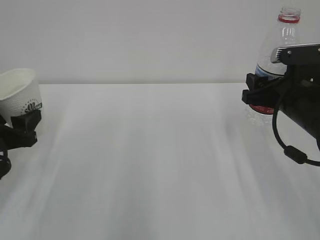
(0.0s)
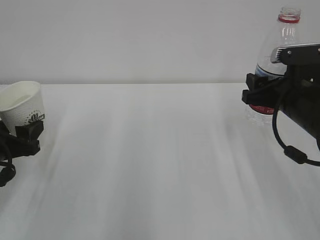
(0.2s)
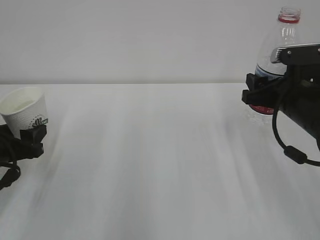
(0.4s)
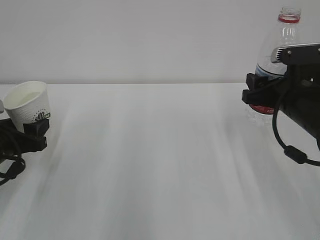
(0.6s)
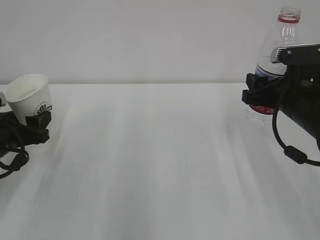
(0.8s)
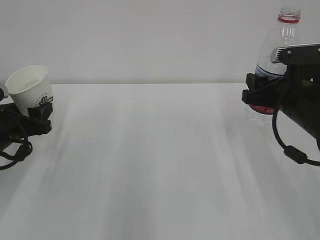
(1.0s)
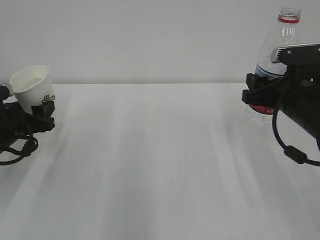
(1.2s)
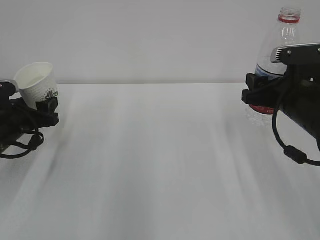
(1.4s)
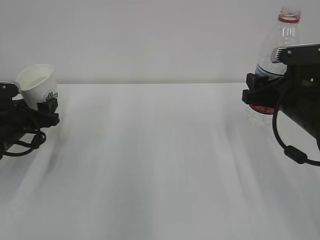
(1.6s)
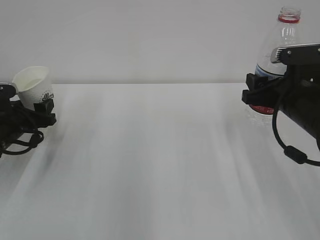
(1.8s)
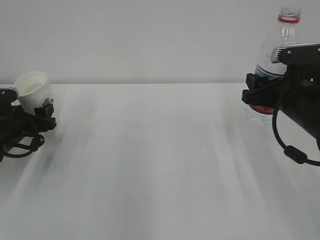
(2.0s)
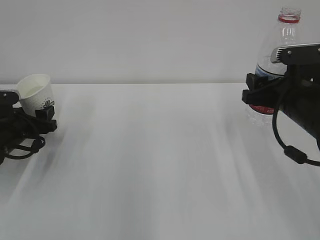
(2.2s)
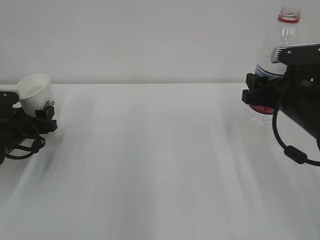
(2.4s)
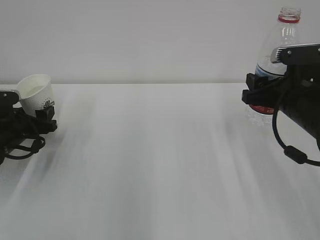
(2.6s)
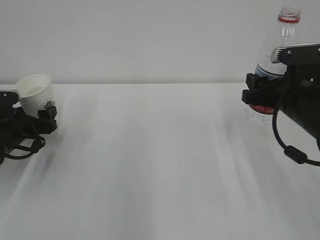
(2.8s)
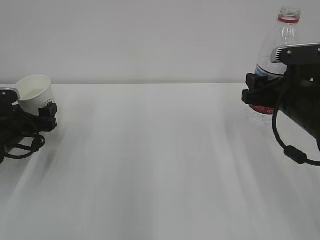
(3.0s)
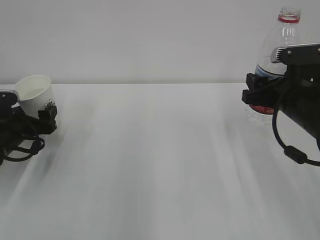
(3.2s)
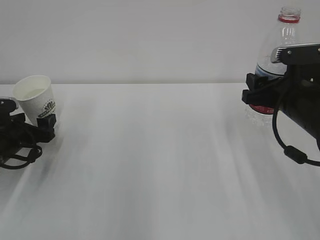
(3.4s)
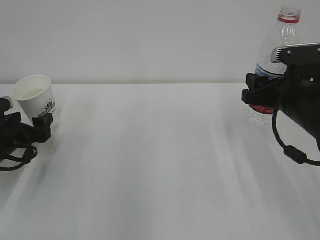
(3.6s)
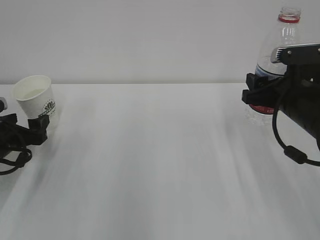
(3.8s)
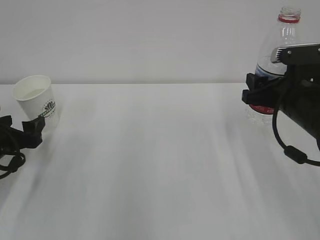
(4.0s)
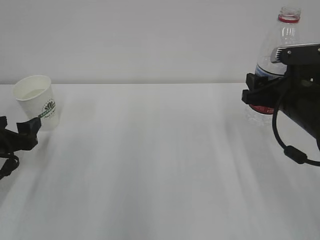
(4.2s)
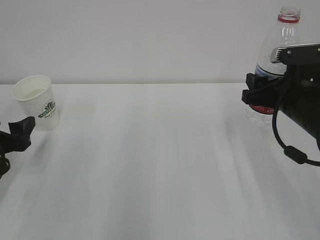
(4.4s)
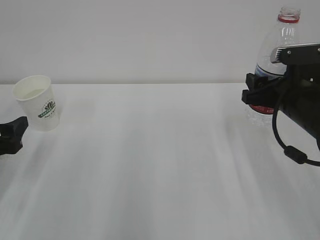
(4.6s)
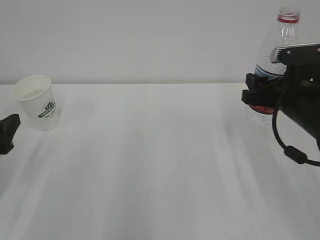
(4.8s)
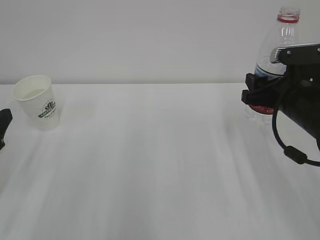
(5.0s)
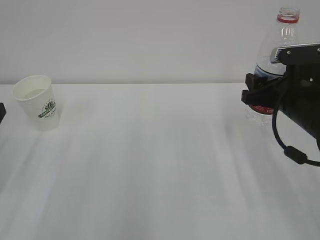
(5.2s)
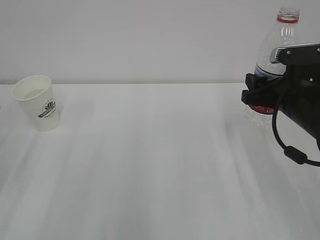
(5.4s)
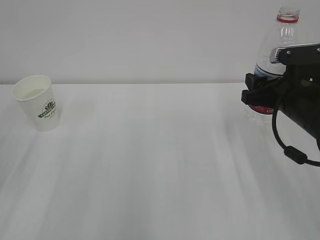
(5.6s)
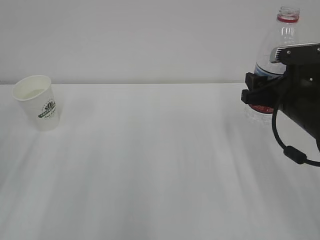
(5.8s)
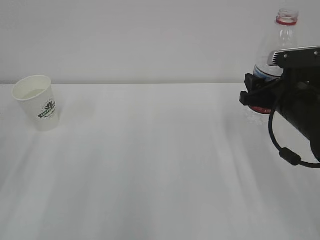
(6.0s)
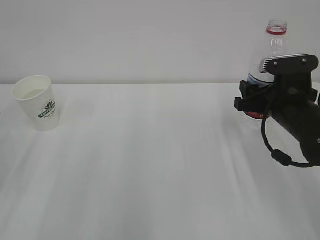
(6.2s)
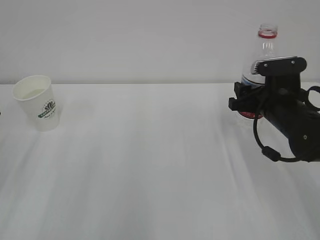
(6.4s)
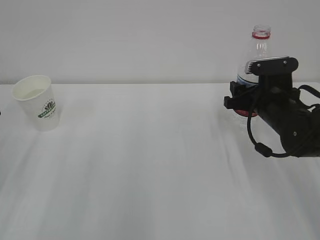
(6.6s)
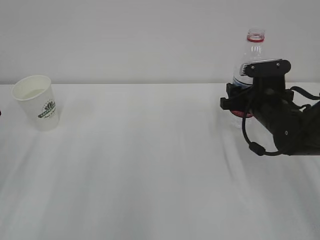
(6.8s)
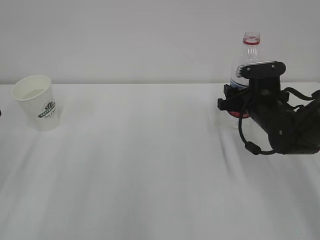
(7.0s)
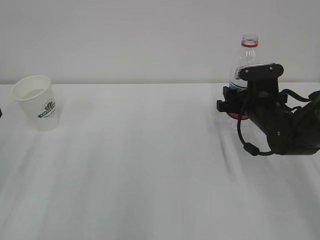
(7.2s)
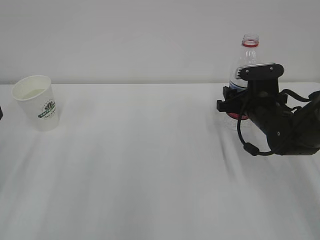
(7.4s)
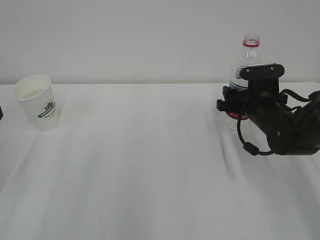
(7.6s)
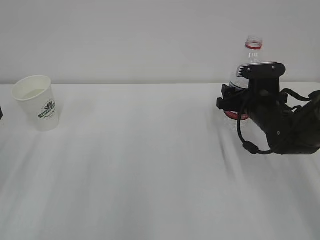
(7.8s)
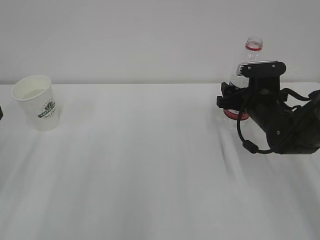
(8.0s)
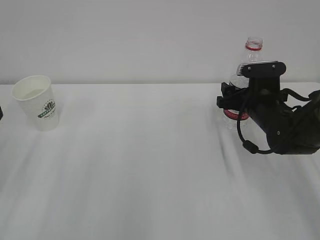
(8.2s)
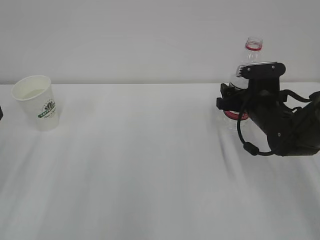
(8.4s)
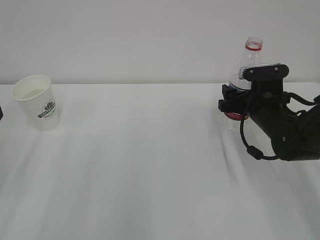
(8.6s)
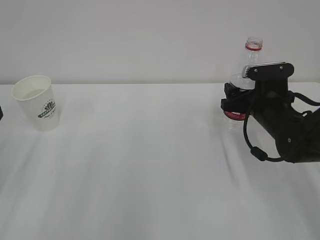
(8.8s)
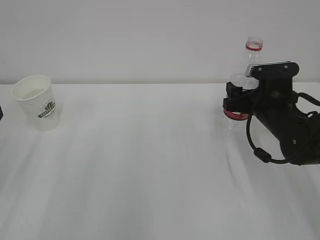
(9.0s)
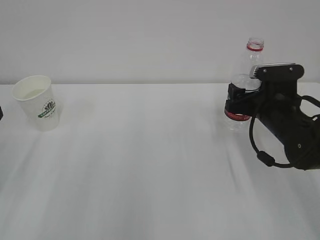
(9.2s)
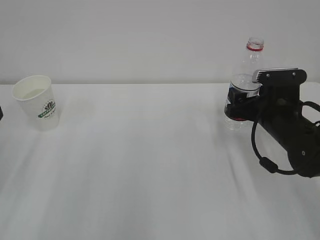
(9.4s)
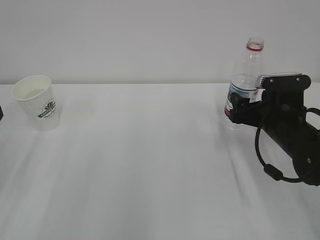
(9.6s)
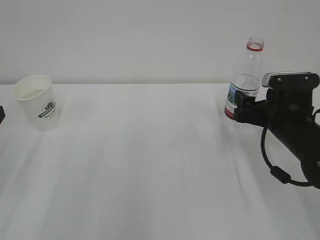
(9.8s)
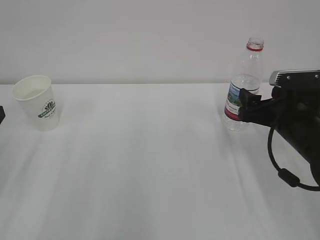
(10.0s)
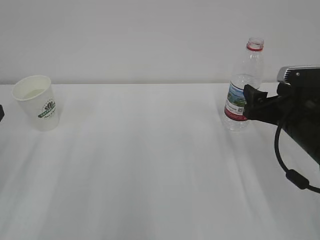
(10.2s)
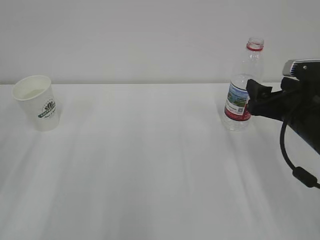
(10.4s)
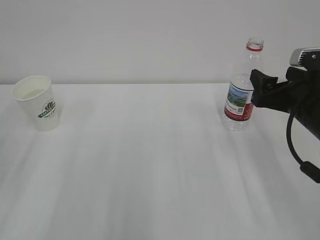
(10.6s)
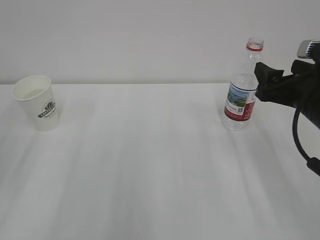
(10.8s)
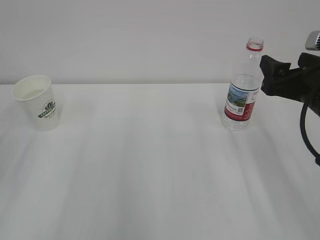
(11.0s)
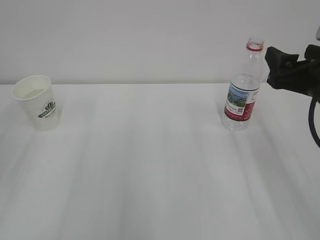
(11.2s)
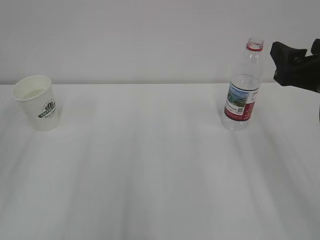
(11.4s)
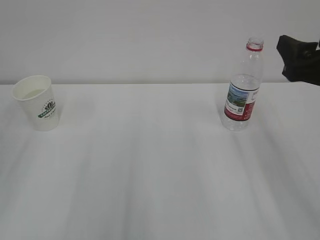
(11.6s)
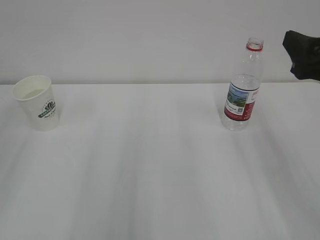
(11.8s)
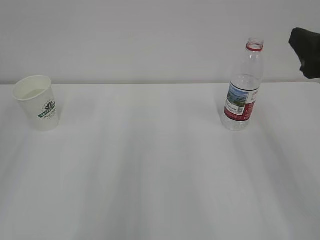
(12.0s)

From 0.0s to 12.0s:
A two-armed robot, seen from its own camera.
From 0.0s to 1.6s: The left gripper travels forward by some 10 cm.
From 1.6s to 3.0s: The left gripper opens its fingers.
From 3.0s to 4.4s: The left gripper is displaced backward by about 10 cm.
From 4.4s to 6.0s: The left gripper heads upward and backward, covering about 10 cm.
From 6.0s to 7.6s: The right gripper moves forward and downward, some 10 cm.
From 7.6s to 9.0s: The right gripper opens.
From 9.0s to 10.4s: The right gripper is displaced backward by roughly 5 cm.
From 10.4s to 12.0s: The right gripper travels upward and backward by about 15 cm.

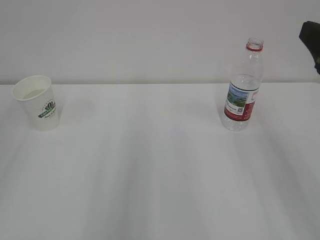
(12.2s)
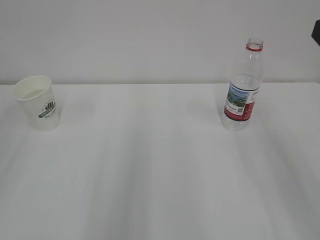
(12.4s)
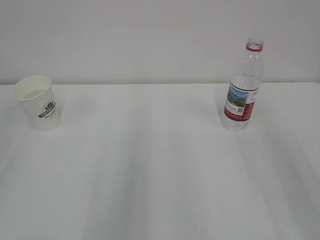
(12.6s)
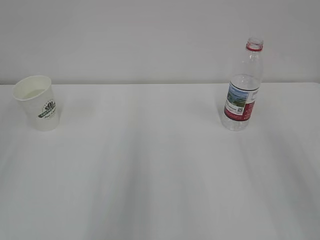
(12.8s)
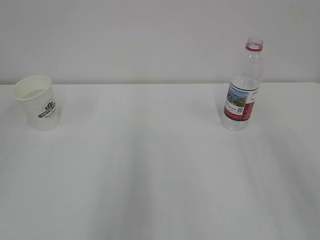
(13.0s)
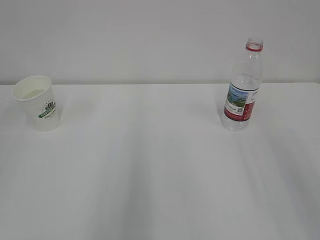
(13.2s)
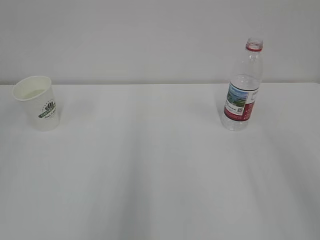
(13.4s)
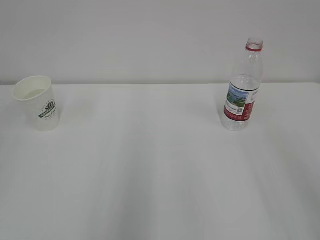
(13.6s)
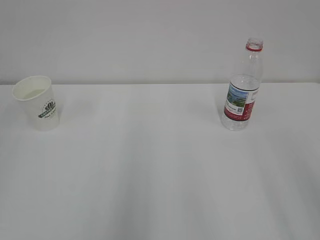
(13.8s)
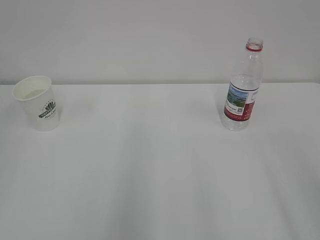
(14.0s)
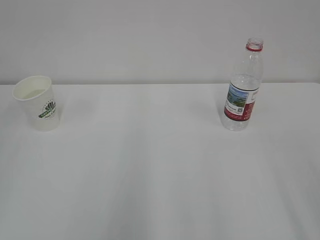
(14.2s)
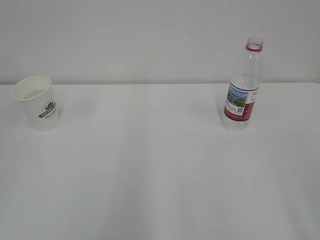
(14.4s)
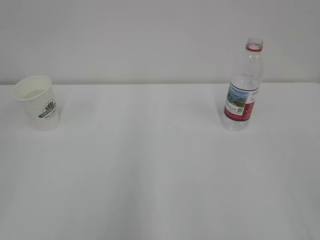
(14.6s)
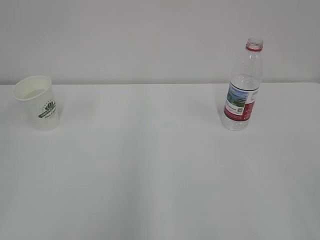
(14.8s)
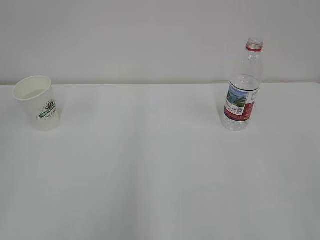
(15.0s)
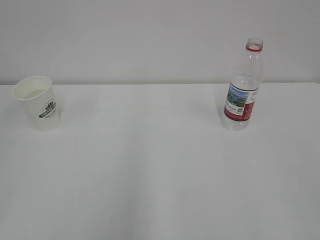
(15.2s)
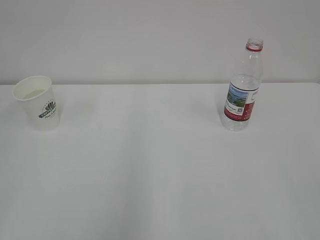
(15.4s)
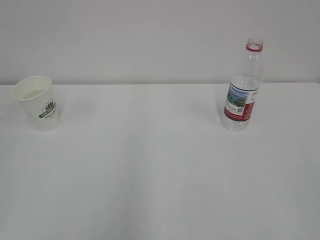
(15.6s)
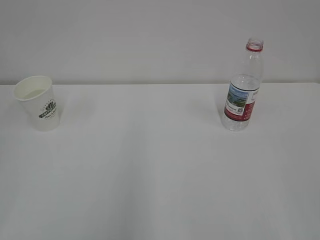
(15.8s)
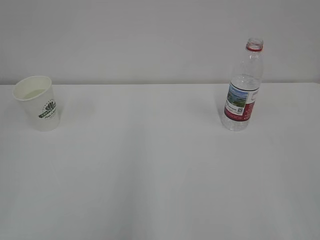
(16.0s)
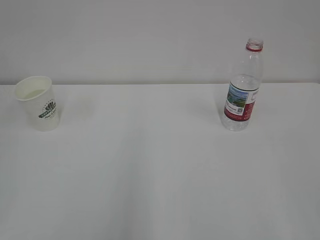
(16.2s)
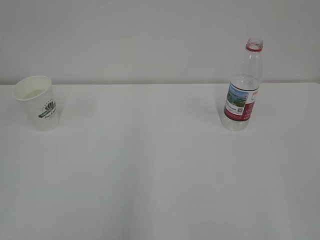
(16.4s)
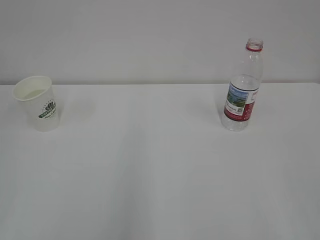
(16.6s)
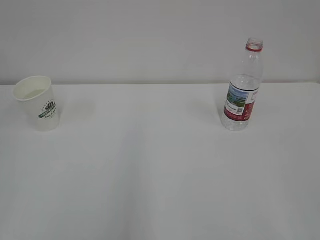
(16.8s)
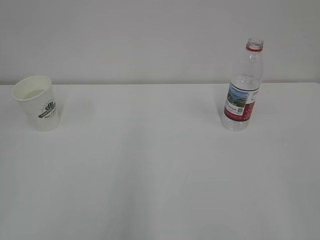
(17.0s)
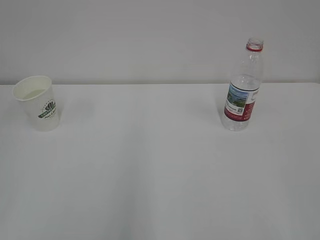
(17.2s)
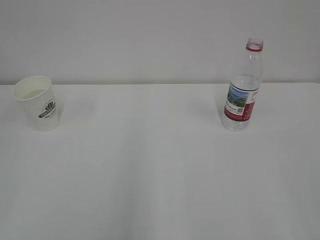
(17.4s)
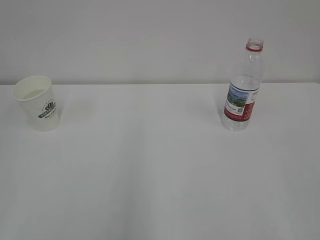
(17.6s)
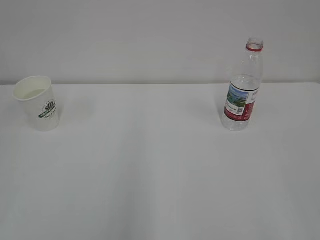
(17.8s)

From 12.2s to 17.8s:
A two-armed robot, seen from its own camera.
From 12.2s to 13.6s: The right gripper heads backward, covering some 10 cm.
From 16.4s to 17.8s: The two grippers keep their place.

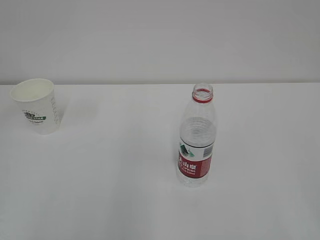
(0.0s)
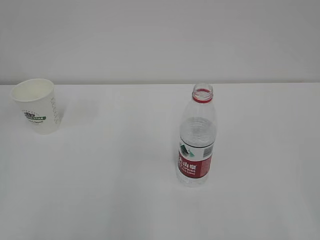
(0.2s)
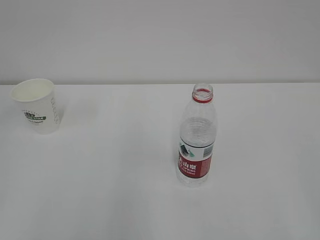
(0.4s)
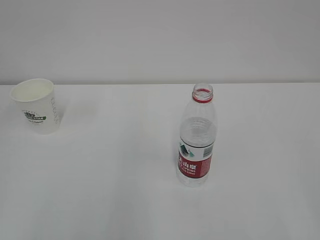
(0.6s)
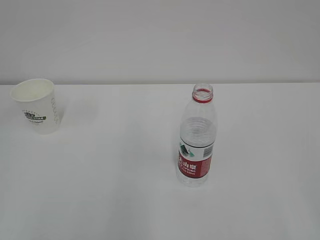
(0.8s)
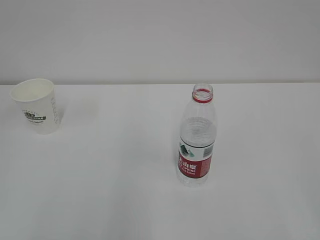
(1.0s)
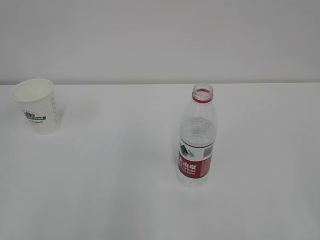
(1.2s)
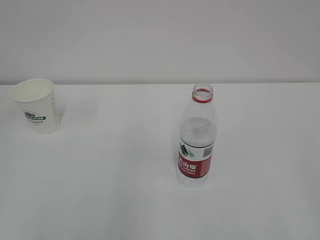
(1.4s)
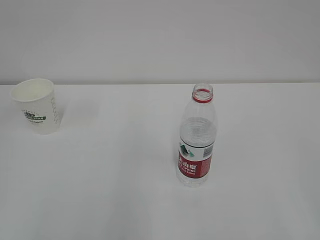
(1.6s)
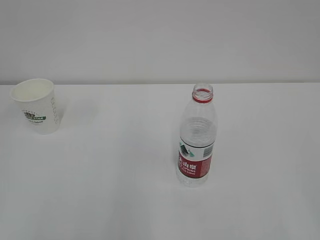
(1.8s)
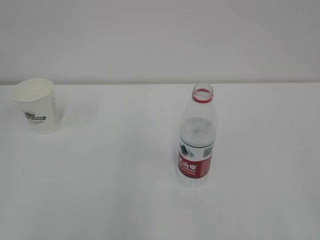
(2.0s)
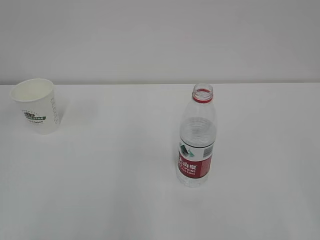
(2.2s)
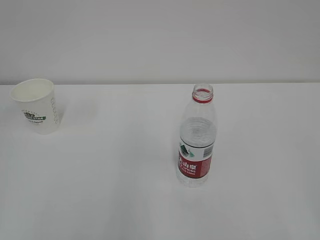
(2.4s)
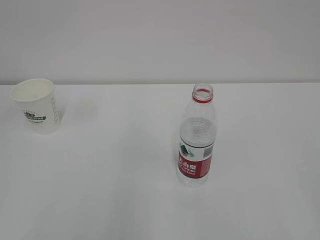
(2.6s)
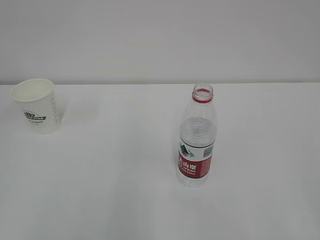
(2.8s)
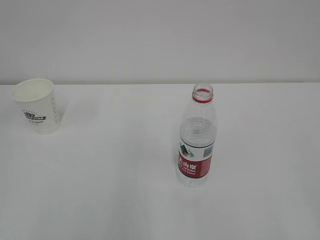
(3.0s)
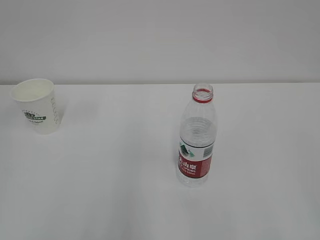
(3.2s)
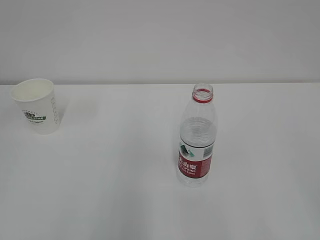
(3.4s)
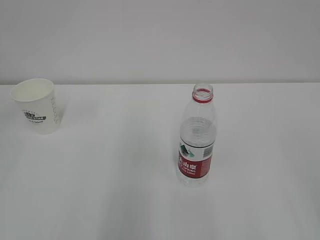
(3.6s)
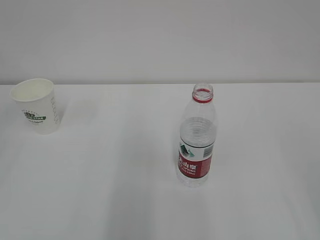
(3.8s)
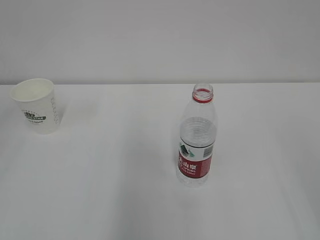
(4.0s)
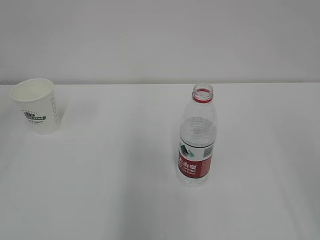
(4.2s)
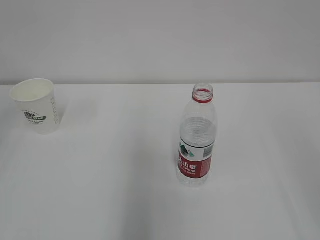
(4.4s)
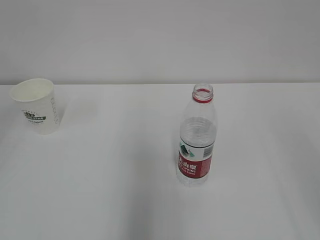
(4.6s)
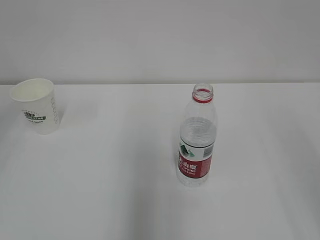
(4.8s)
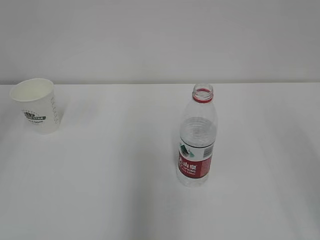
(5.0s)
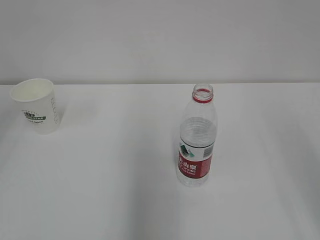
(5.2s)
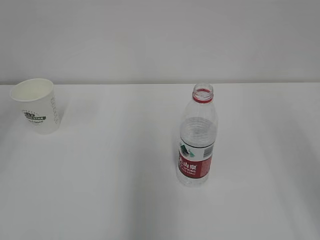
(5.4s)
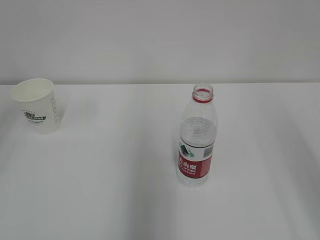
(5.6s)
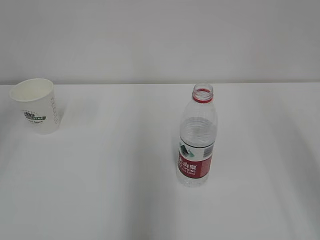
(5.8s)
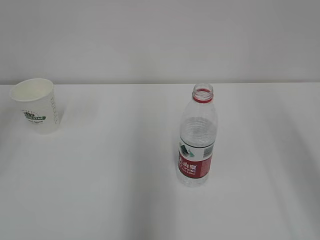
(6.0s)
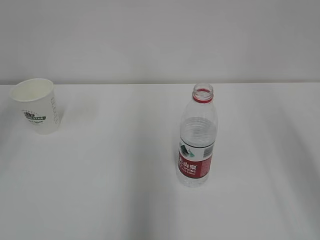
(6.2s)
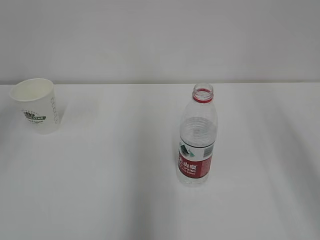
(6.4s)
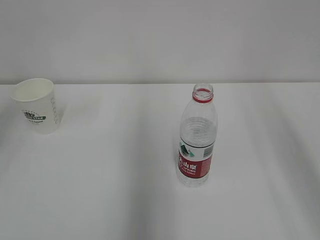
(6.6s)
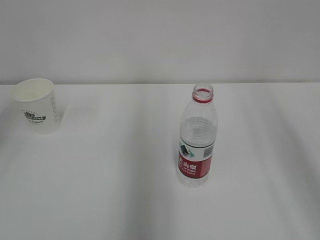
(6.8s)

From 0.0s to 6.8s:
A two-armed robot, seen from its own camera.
From 1.4s to 2.8s: Neither gripper changes place.
